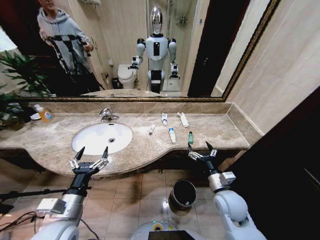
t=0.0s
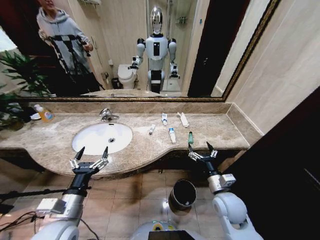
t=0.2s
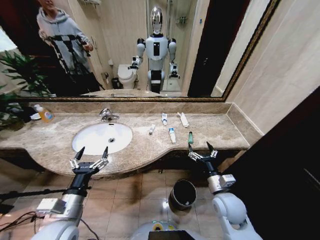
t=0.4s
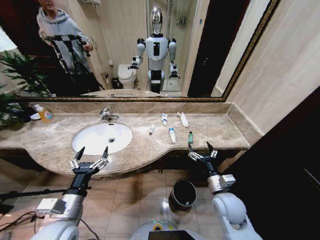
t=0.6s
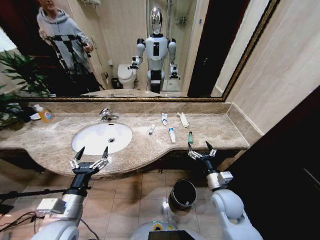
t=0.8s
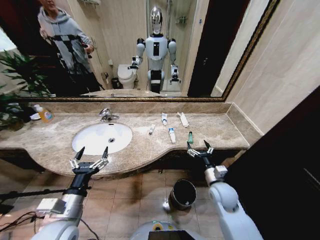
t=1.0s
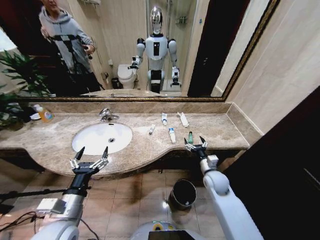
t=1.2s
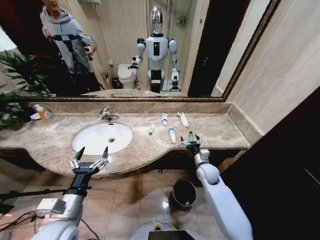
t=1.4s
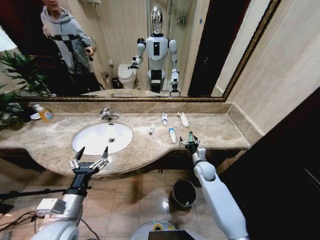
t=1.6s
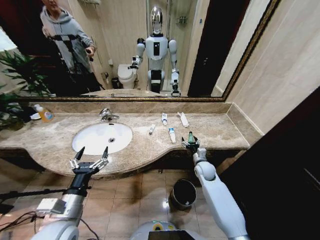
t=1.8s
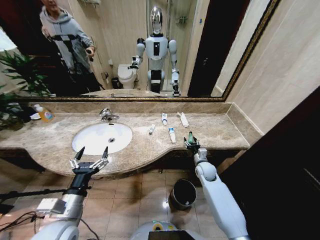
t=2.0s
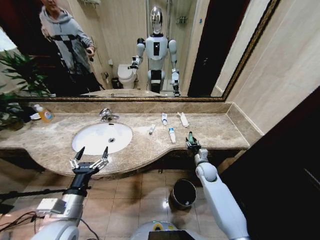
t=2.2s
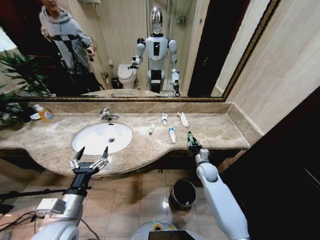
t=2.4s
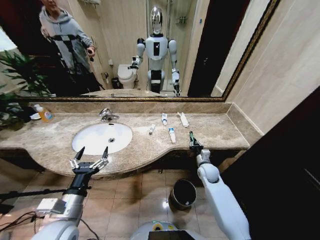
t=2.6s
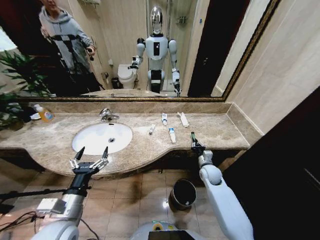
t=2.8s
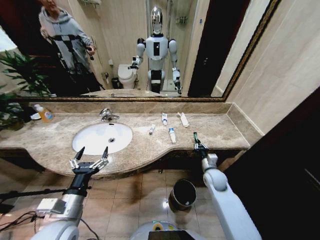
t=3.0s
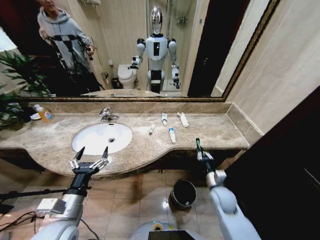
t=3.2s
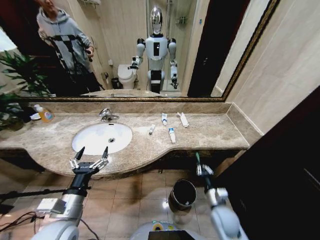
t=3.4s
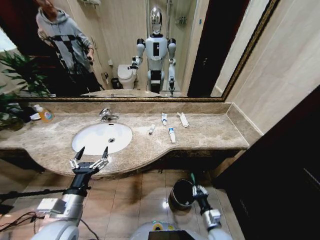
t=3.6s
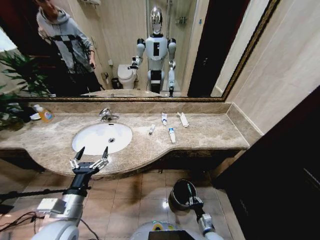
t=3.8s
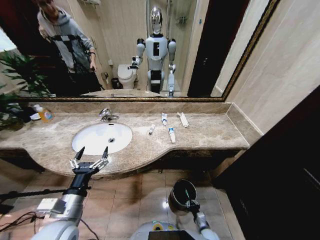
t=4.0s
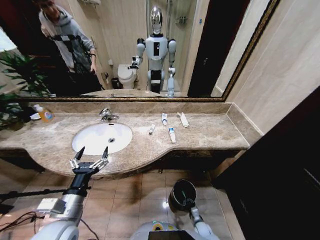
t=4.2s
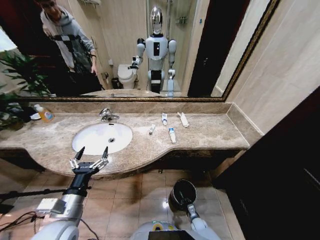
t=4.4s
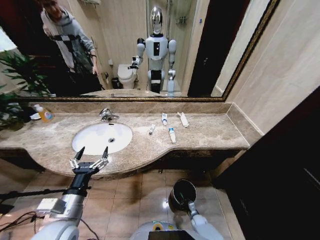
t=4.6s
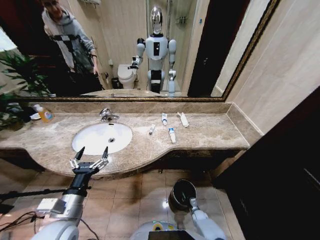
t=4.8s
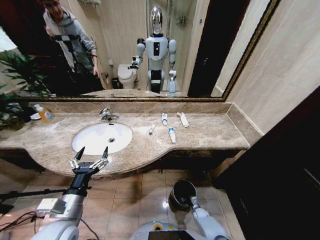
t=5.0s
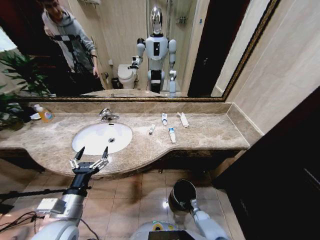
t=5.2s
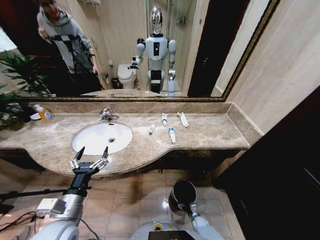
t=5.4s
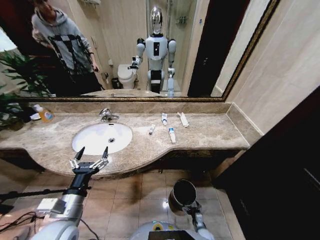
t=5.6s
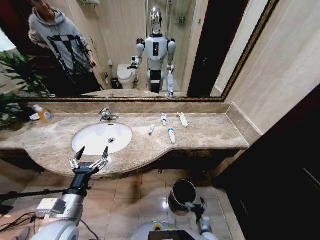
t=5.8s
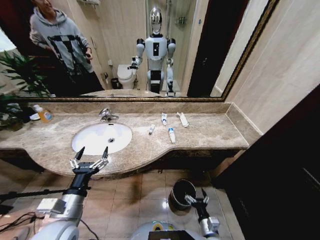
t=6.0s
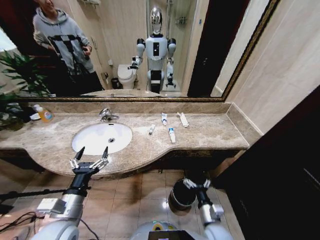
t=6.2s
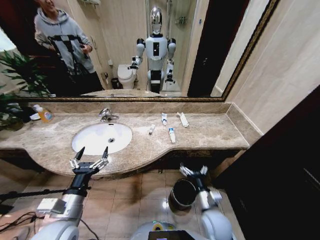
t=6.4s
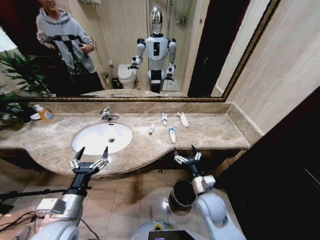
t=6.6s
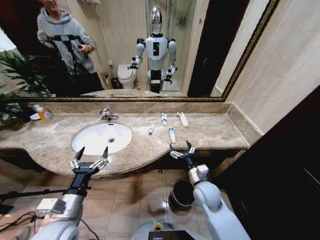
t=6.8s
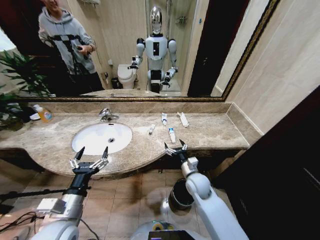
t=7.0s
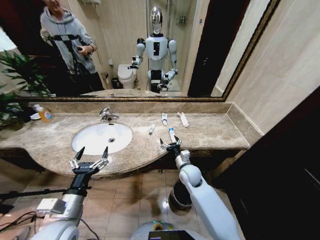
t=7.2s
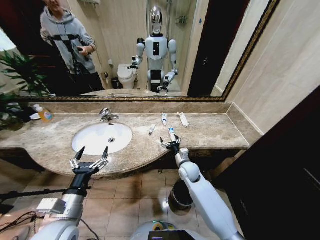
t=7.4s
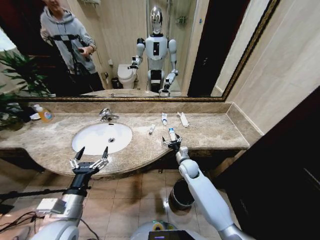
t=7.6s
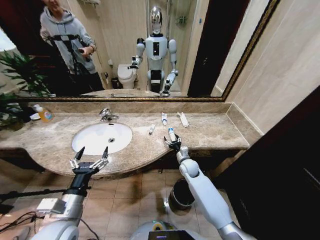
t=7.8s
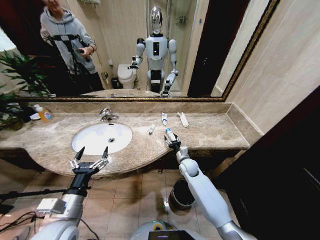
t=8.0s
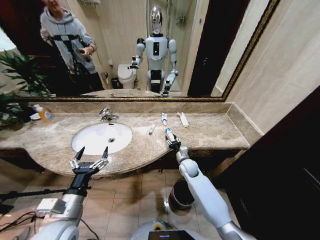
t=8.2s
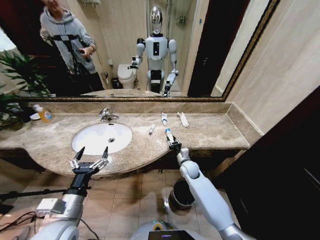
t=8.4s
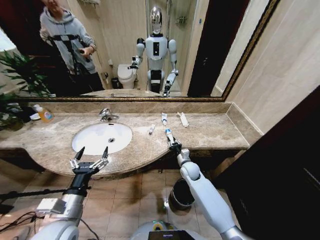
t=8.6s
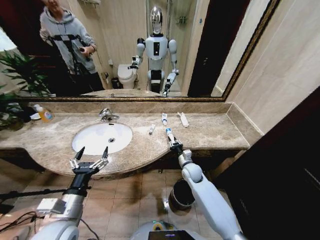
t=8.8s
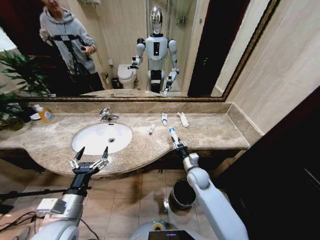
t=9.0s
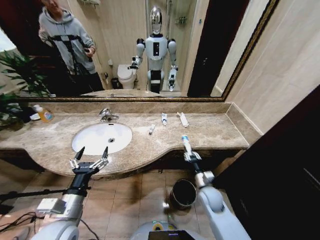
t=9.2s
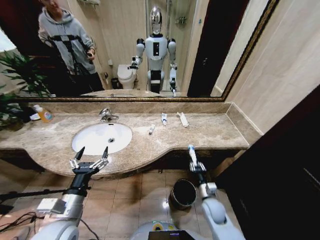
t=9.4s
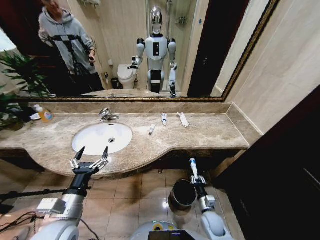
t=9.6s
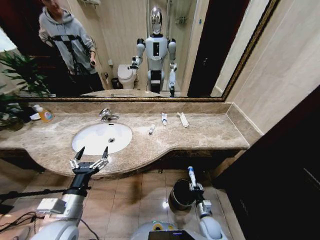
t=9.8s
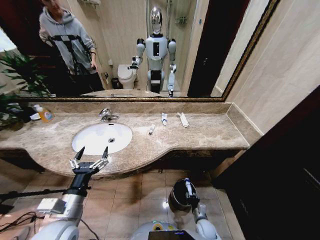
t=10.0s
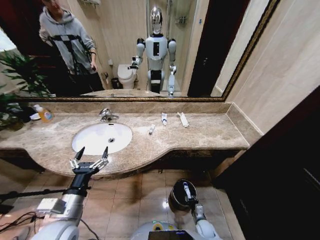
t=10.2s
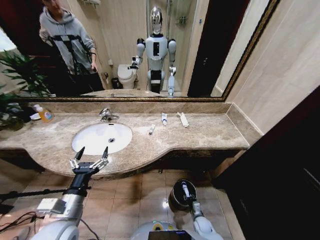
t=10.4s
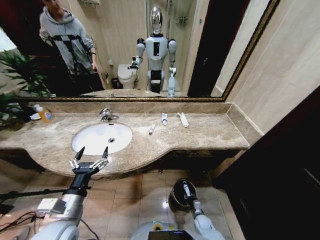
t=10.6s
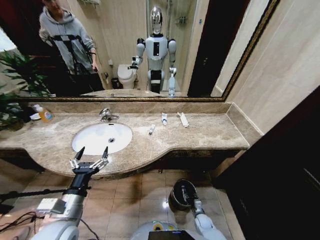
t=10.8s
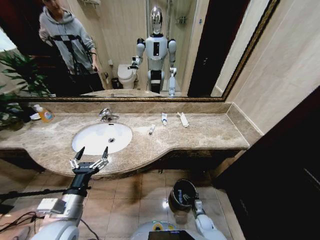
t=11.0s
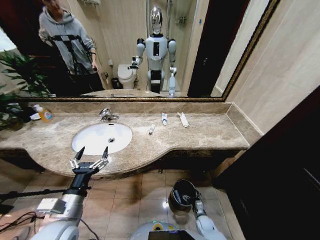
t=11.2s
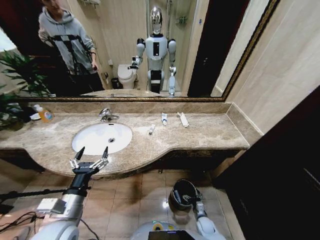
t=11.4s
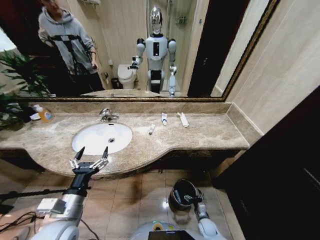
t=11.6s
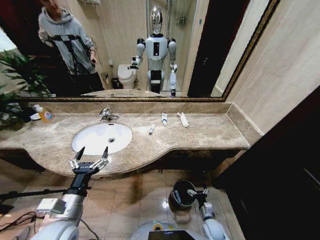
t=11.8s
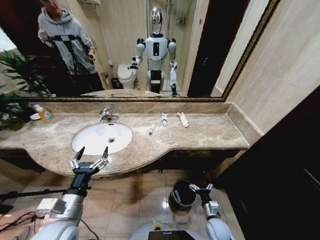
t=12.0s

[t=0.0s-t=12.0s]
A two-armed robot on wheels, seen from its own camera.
Task of the whole recording: Pick up the trash from the sink and place it in the trash bin.
t=1.6s to t=3.0s: The right gripper goes roughly 5 cm backward, and closes its fingers.
t=3.0s to t=4.4s: The right gripper moves downward, about 35 cm.
t=4.4s to t=6.0s: The right gripper shifts approximately 20 cm upward and backward, and opens its fingers.
t=6.0s to t=7.6s: The right gripper is displaced forward and upward by some 35 cm.
t=7.6s to t=9.0s: The right gripper goes approximately 5 cm backward, and closes up.
t=9.0s to t=10.4s: The right gripper is displaced downward and backward by roughly 30 cm.
t=10.4s to t=12.0s: The right gripper heads upward, covering some 10 cm, and opens up.

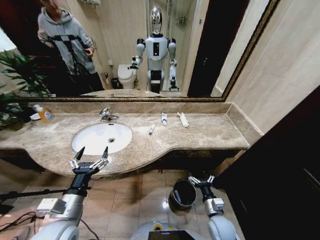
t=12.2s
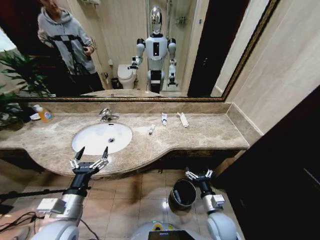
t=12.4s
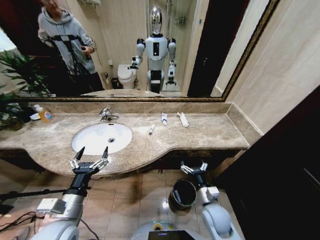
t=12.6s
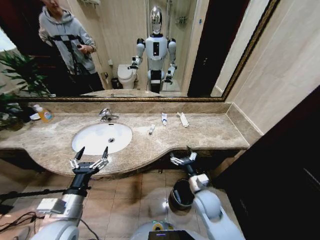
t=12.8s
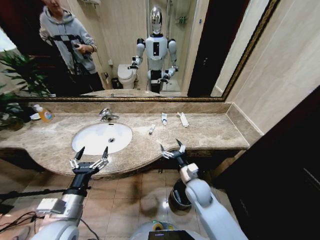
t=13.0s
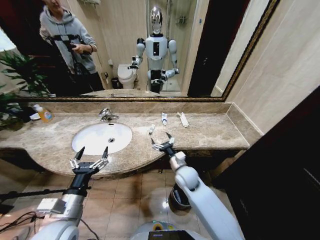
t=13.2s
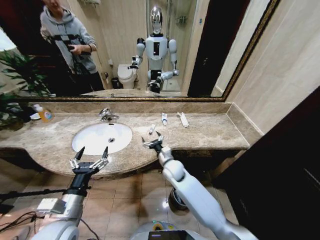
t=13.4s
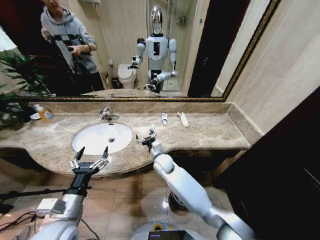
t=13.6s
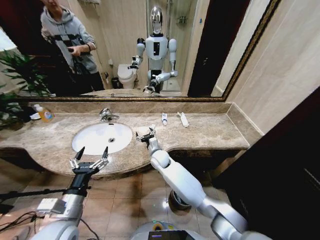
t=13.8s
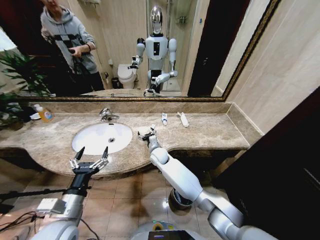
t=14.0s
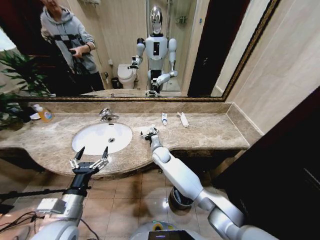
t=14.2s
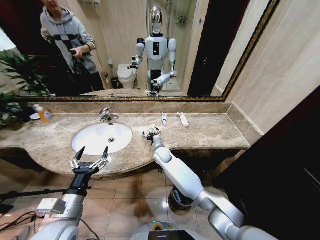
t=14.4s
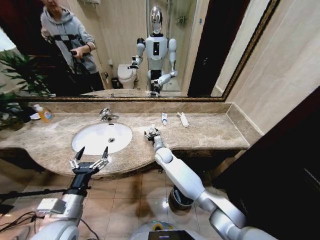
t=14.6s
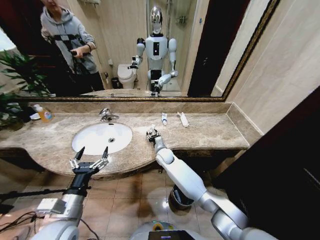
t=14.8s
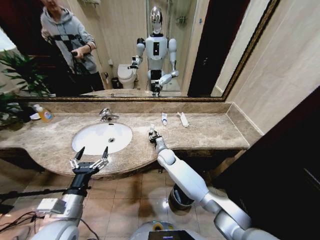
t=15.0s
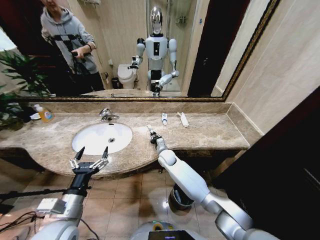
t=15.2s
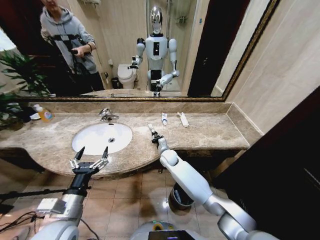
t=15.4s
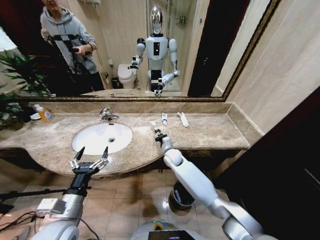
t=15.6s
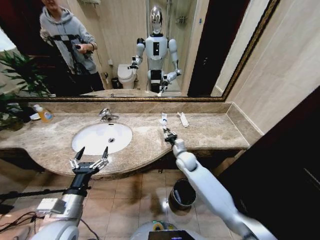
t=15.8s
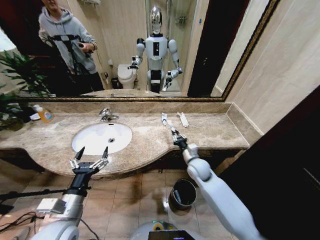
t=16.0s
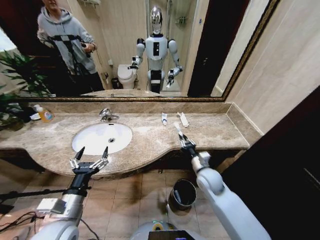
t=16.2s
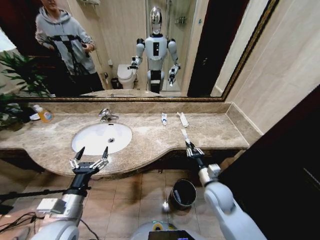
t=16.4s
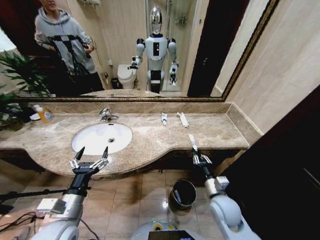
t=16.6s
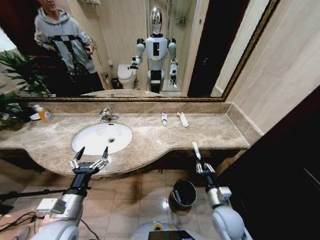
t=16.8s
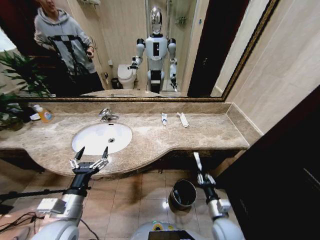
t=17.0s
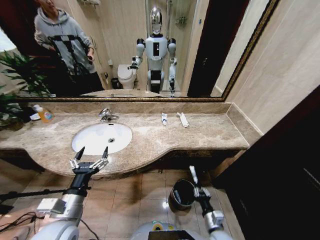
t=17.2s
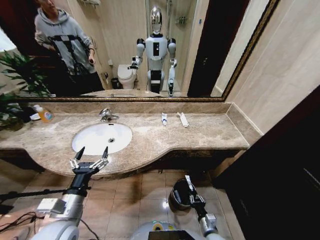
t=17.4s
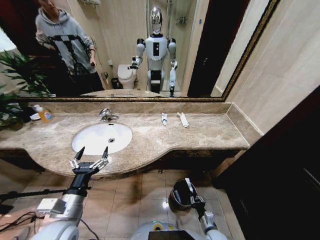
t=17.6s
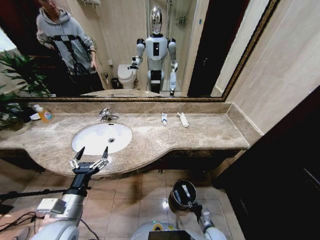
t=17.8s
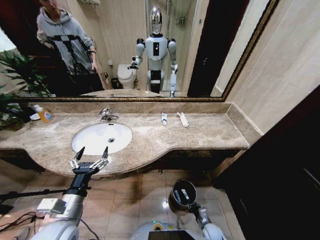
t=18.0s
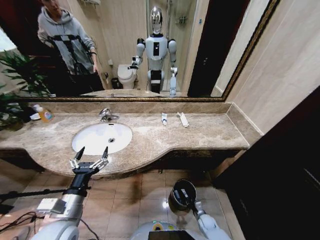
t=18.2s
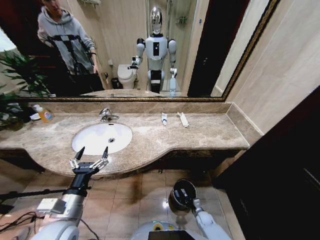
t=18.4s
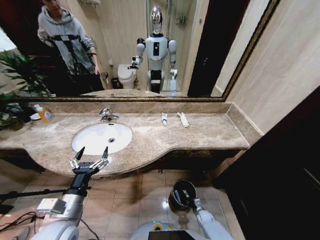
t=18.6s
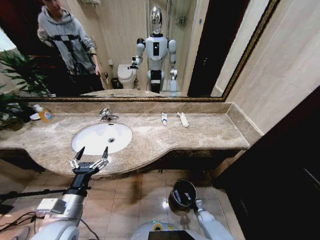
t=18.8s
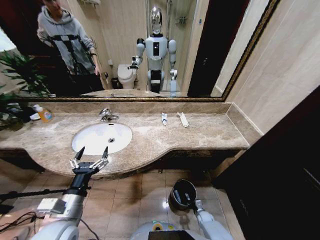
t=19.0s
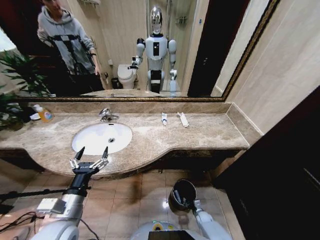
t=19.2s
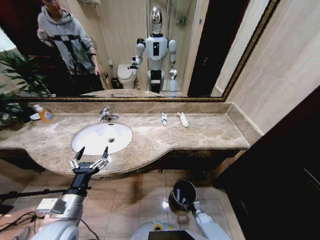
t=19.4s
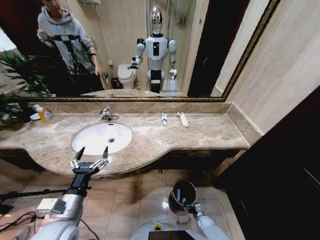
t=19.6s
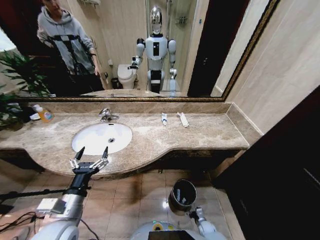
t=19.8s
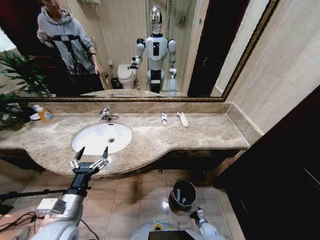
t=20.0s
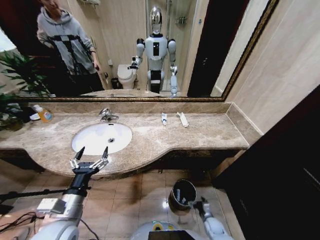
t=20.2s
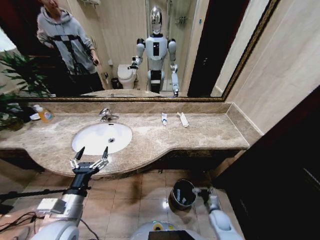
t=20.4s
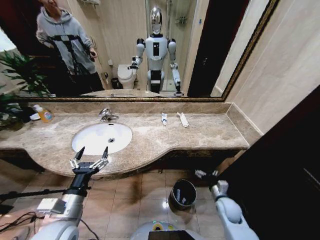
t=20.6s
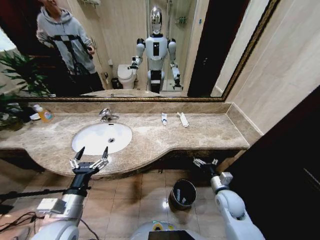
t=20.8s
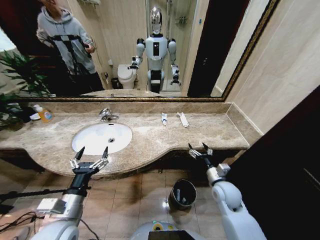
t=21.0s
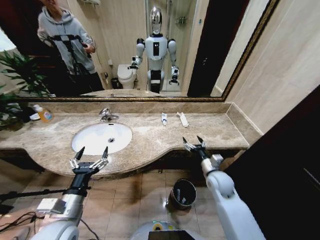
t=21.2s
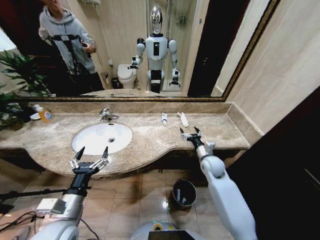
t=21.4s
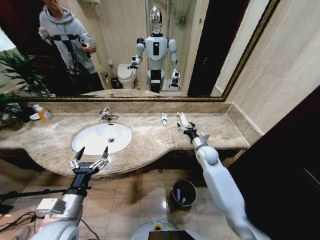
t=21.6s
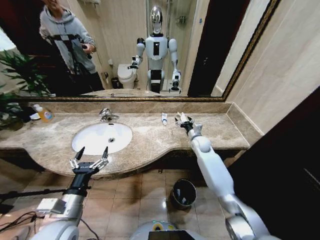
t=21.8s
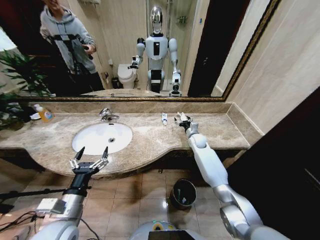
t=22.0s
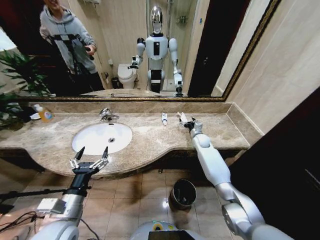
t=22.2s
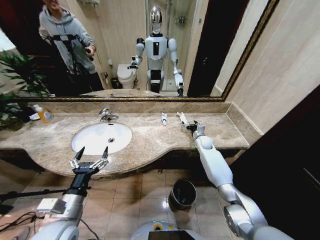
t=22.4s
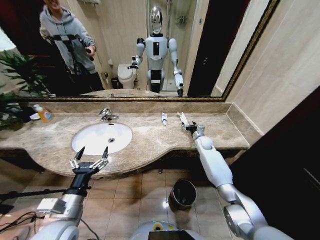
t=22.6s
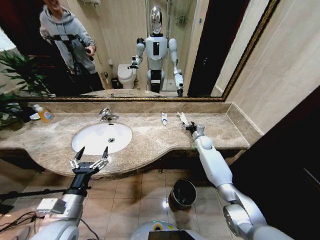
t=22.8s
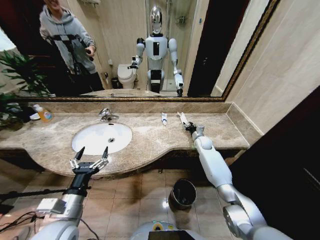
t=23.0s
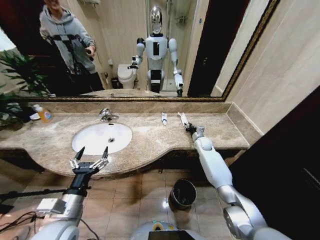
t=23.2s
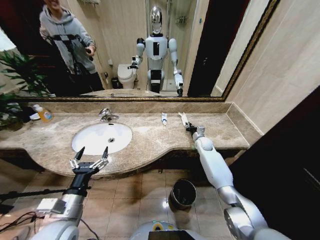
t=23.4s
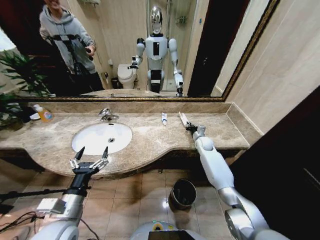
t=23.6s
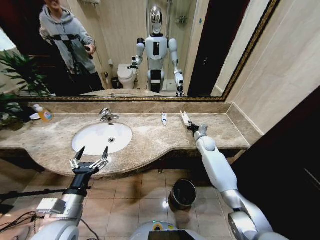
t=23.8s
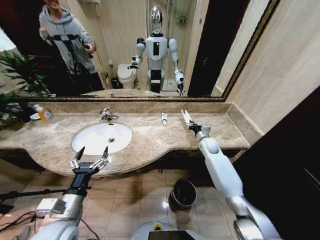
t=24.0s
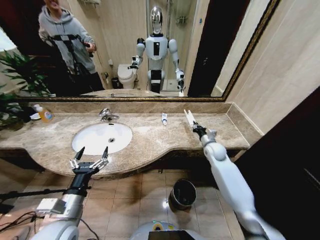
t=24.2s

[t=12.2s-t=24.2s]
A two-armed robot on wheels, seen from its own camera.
Task of the whole recording: Pick up the trash from the sink and place it in the trash bin.
t=12.2s to t=13.8s: The right gripper goes approximately 40 cm forward, to the left and upward.
t=13.8s to t=15.2s: The right gripper ends up approximately 5 cm from where it was, and closes its fingers.
t=15.2s to t=16.6s: The right gripper is displaced backward and to the right by some 30 cm.
t=16.6s to t=18.2s: The right gripper travels downward by roughly 35 cm.
t=18.2s to t=19.8s: The right gripper goes roughly 5 cm downward, and opens up.
t=19.8s to t=21.2s: The right gripper goes approximately 40 cm upward.
t=21.2s to t=22.6s: The right gripper is displaced forward by approximately 25 cm.
t=22.6s to t=24.2s: The right gripper heads backward, covering approximately 10 cm, and closes.
